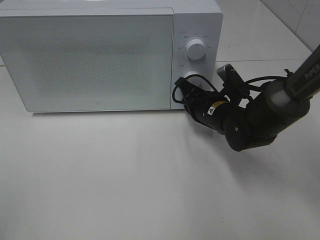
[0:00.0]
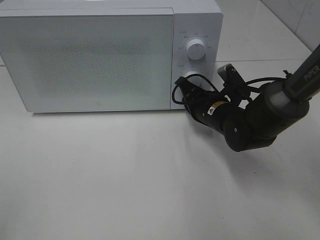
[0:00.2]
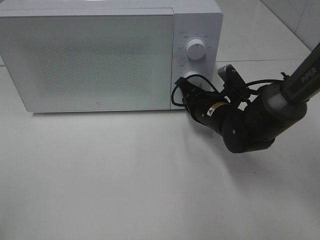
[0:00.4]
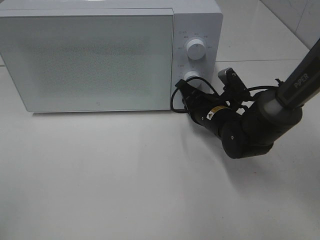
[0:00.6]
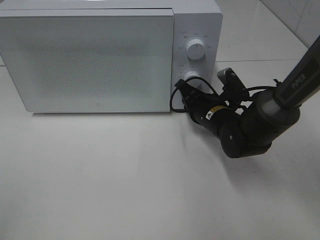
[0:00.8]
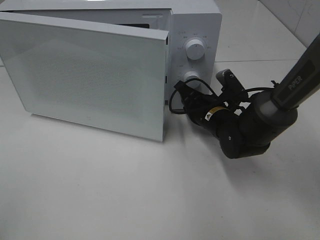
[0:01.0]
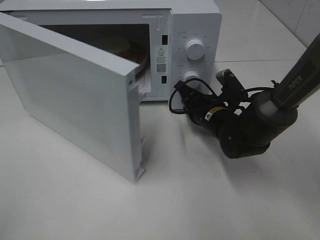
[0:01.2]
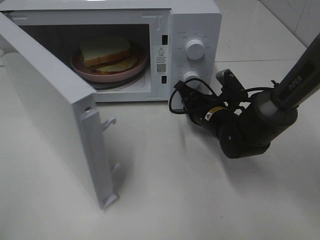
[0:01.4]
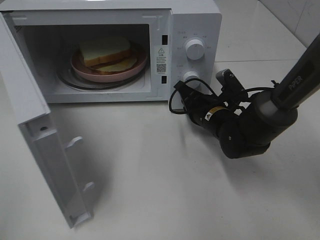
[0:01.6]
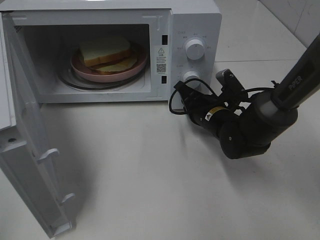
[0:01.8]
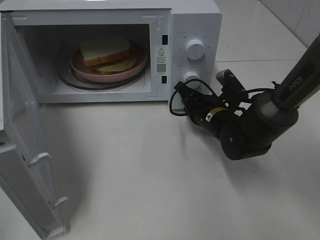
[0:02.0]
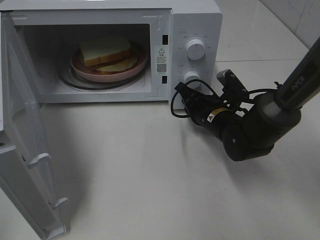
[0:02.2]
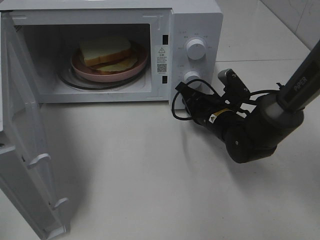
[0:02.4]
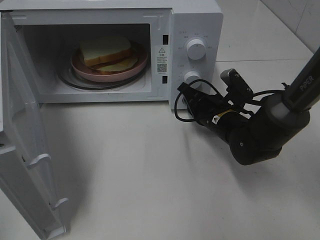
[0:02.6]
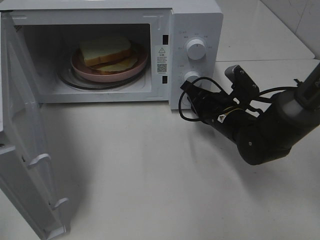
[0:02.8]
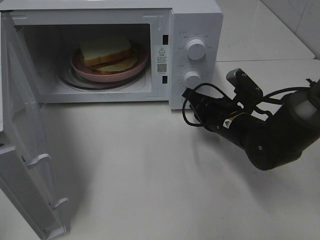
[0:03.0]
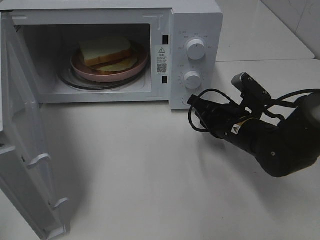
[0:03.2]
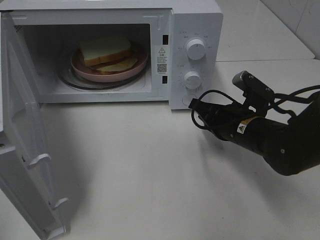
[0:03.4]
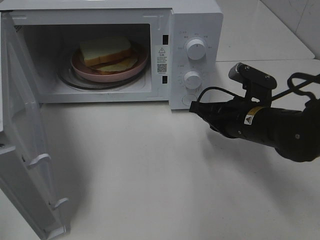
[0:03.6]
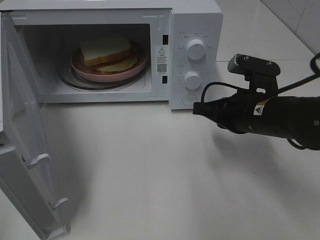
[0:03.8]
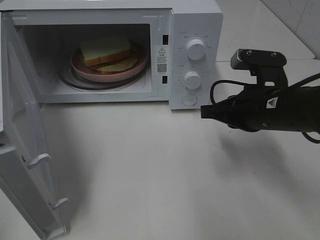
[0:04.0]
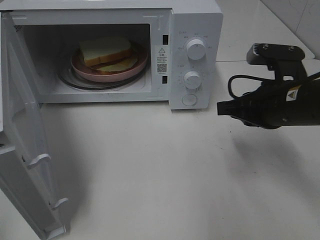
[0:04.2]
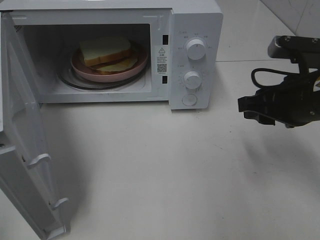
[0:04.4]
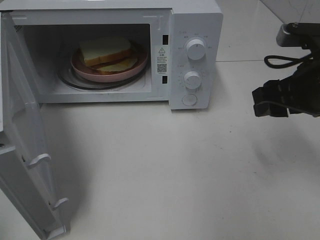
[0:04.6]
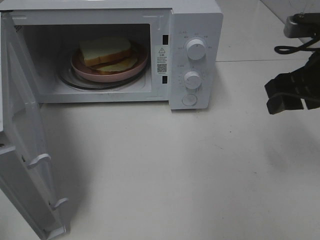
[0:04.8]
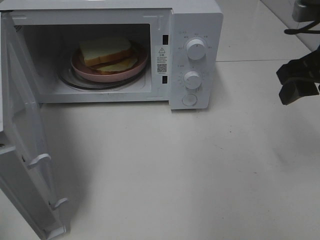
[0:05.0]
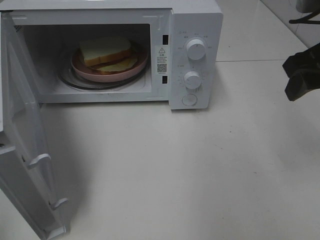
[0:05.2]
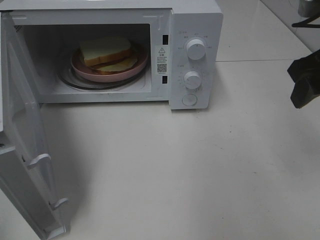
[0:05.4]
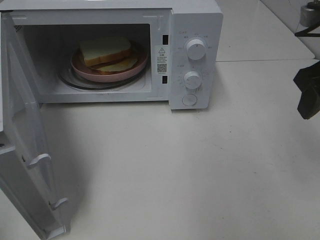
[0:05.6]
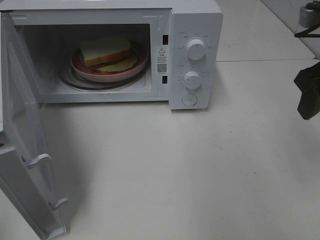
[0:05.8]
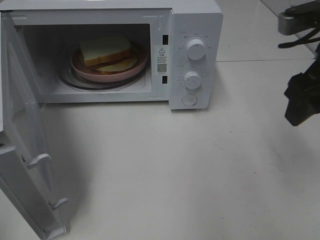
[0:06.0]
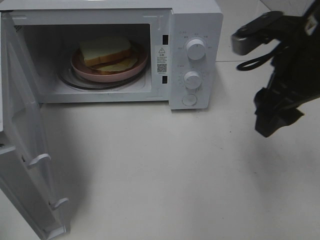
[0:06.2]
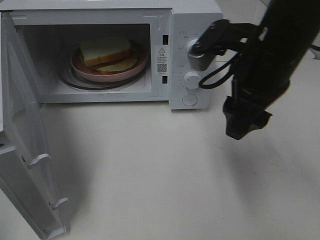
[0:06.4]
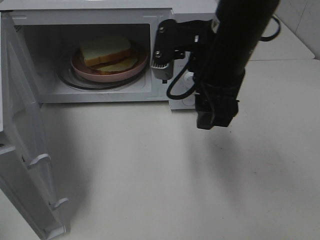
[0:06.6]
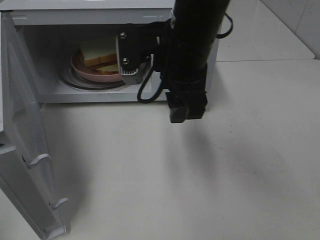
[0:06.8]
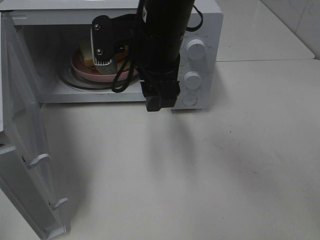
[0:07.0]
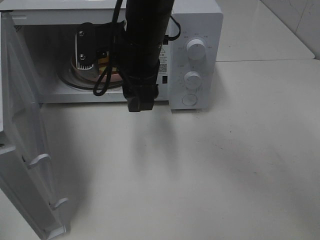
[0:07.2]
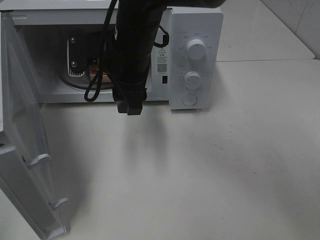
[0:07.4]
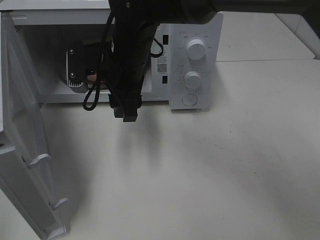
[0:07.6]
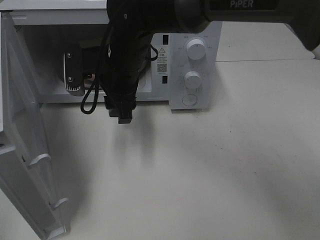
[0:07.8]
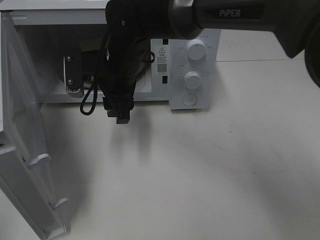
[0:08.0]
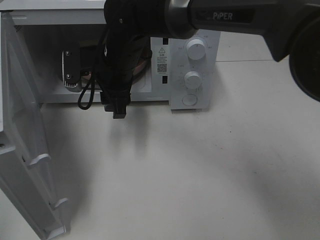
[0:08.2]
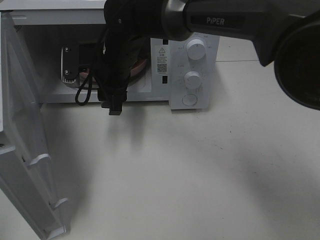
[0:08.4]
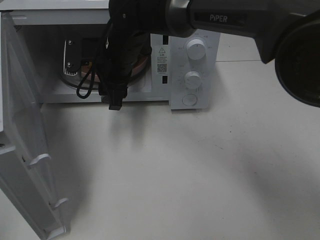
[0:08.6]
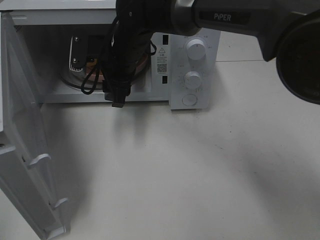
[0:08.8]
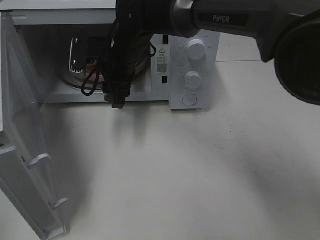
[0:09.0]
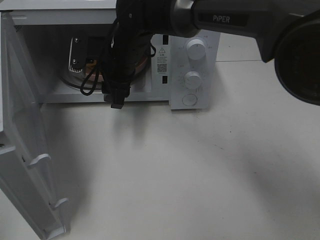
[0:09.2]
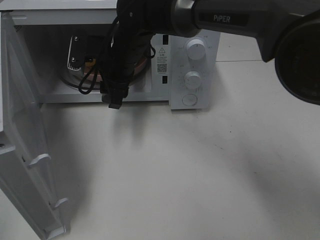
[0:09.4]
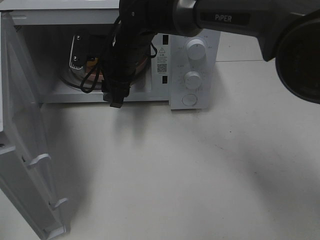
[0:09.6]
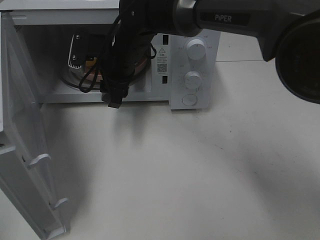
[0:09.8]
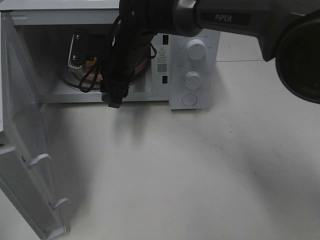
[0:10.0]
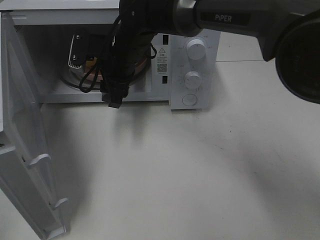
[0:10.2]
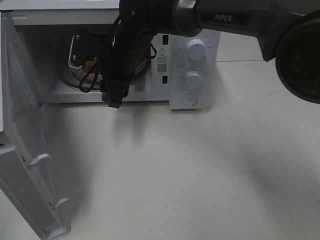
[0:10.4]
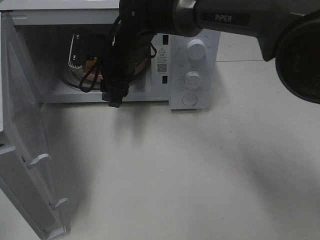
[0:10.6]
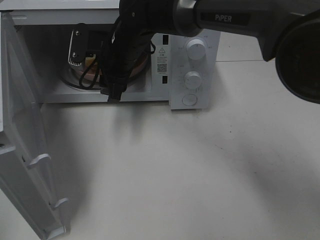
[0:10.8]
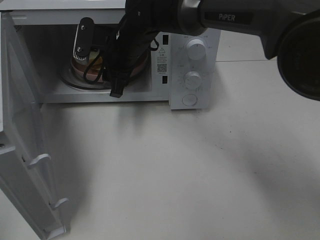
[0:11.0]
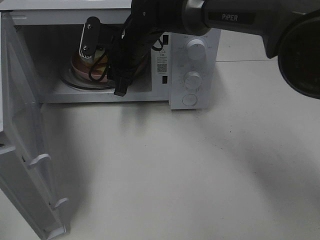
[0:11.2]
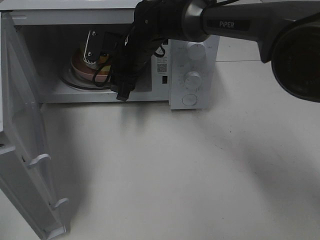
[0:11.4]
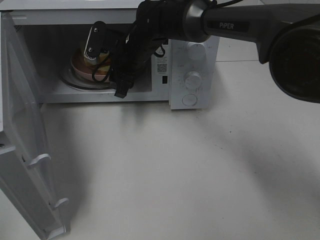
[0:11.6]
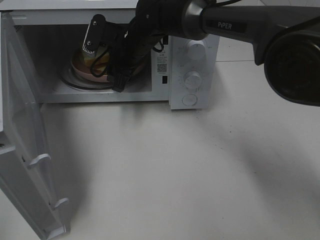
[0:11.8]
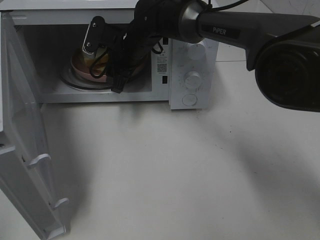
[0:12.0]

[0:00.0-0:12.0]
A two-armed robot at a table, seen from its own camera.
Task of the whole recording: Heat Sandwich.
Step, 0:00.0 to 0:02.6: Right hand: press the switch.
0:01.6 to 0:03.0: The right gripper shifts by roughly 5 cm.
0:03.0 to 0:04.4: The right gripper goes approximately 15 cm upward, to the right and backward, and opens up.
0:04.4 to 0:06.0: The right gripper shifts some 10 cm upward.
0:06.0 to 0:07.6: The right gripper travels to the left by roughly 25 cm.
0:07.6 to 0:09.0: The right gripper moves forward, approximately 5 cm.
0:09.0 to 0:10.4: Neither gripper changes place.
0:10.4 to 0:12.0: The right gripper goes approximately 5 cm forward.

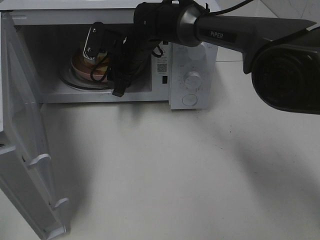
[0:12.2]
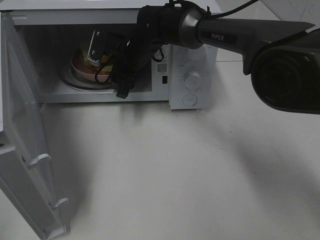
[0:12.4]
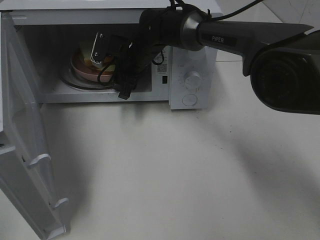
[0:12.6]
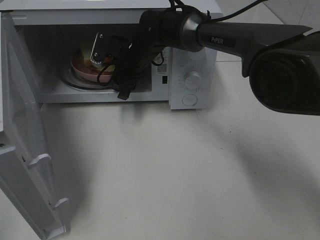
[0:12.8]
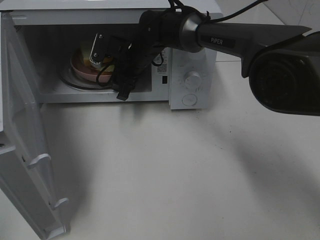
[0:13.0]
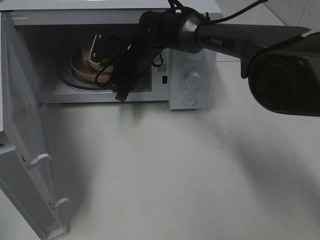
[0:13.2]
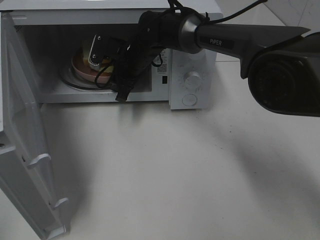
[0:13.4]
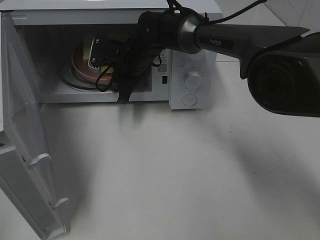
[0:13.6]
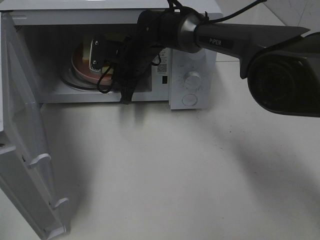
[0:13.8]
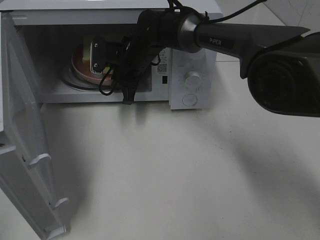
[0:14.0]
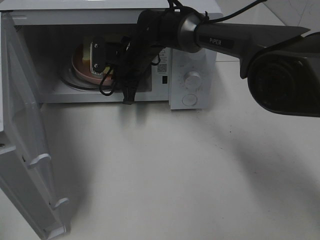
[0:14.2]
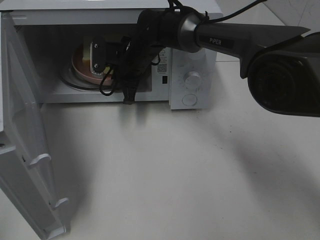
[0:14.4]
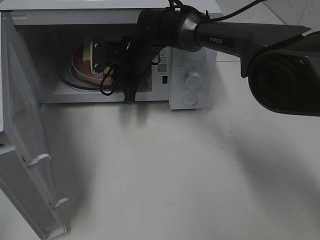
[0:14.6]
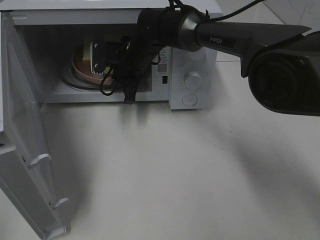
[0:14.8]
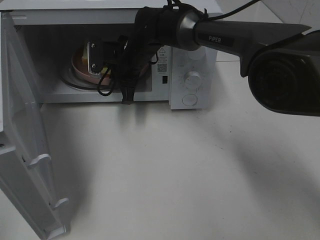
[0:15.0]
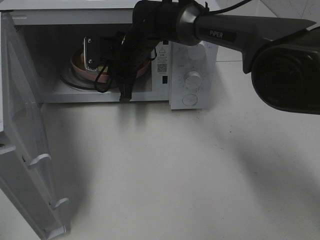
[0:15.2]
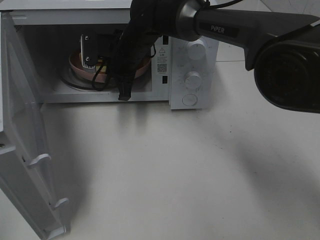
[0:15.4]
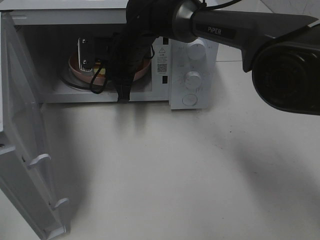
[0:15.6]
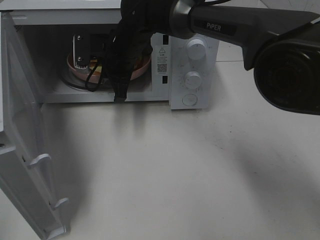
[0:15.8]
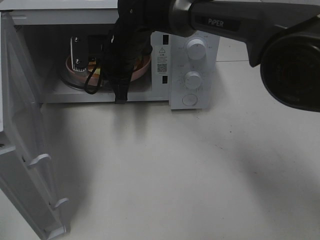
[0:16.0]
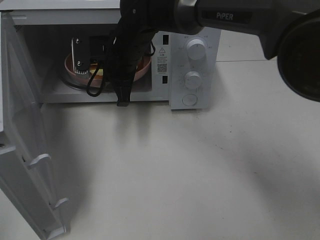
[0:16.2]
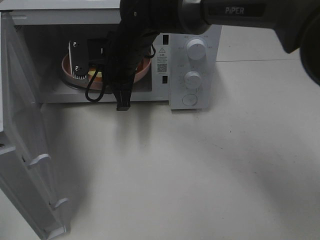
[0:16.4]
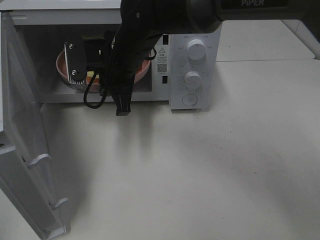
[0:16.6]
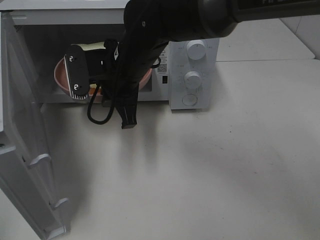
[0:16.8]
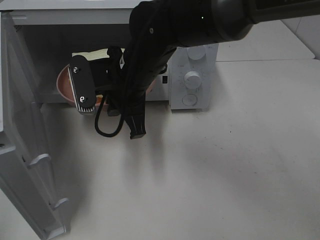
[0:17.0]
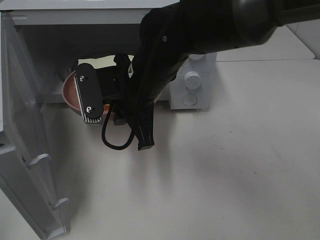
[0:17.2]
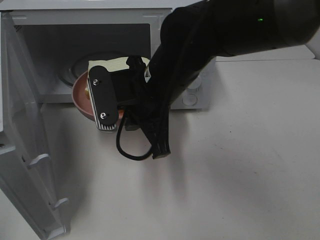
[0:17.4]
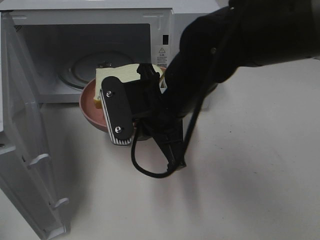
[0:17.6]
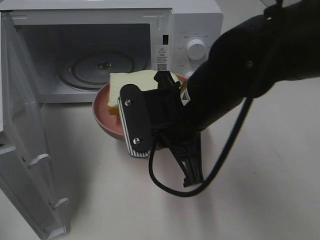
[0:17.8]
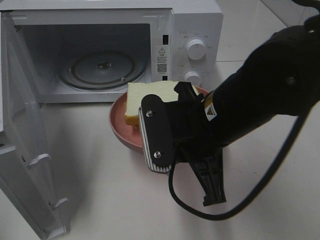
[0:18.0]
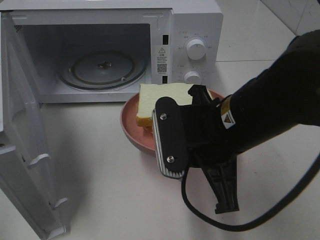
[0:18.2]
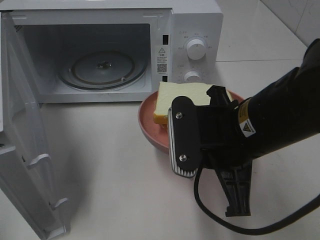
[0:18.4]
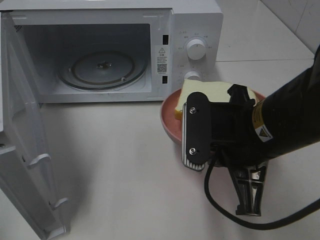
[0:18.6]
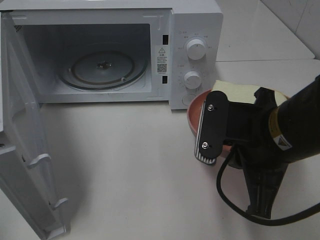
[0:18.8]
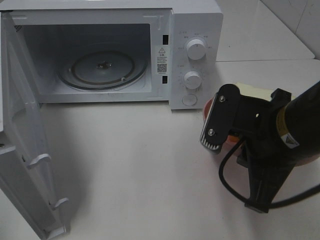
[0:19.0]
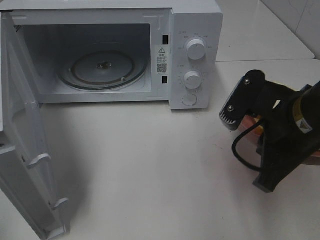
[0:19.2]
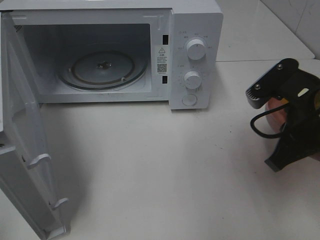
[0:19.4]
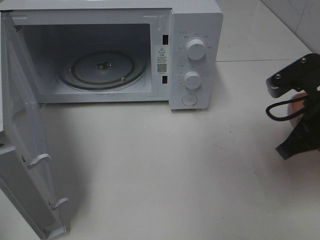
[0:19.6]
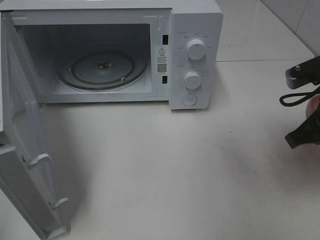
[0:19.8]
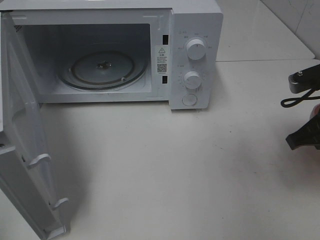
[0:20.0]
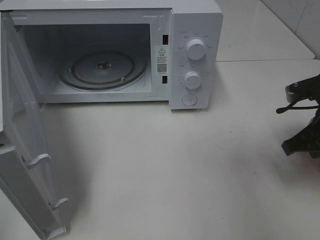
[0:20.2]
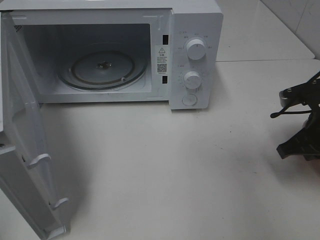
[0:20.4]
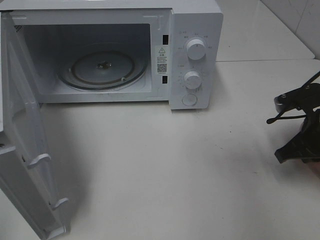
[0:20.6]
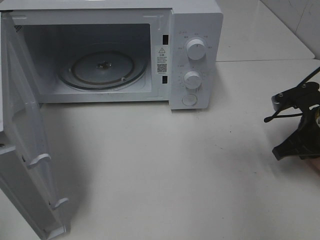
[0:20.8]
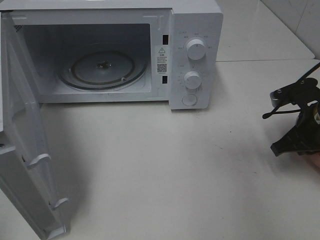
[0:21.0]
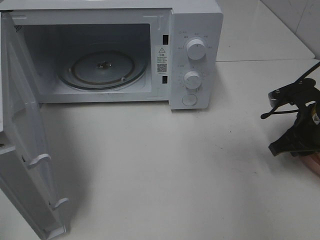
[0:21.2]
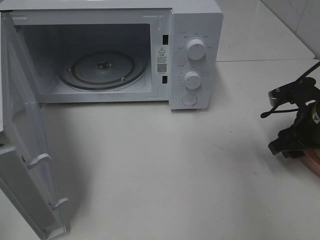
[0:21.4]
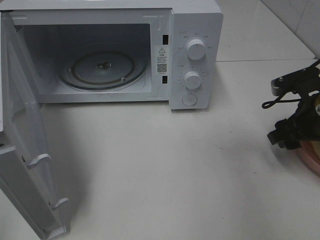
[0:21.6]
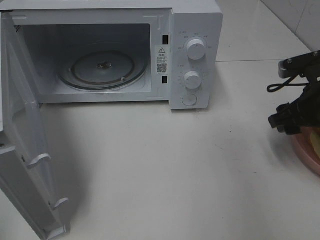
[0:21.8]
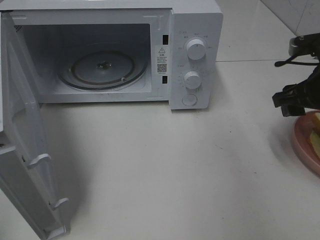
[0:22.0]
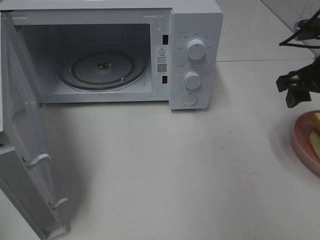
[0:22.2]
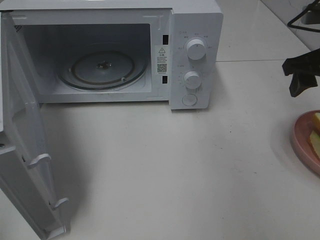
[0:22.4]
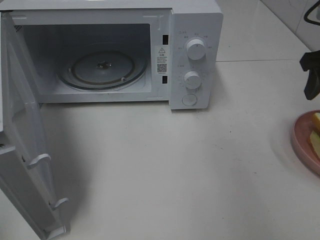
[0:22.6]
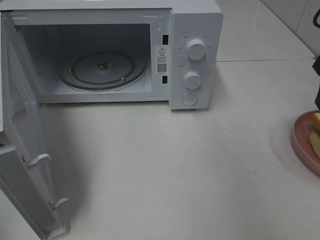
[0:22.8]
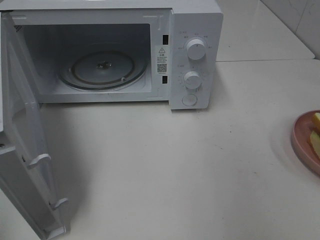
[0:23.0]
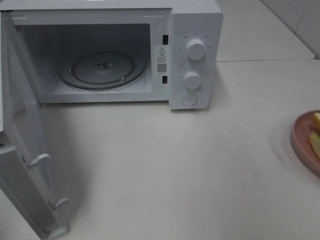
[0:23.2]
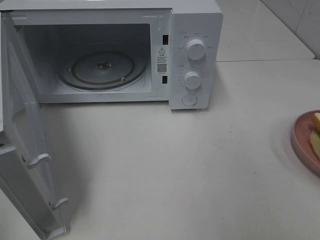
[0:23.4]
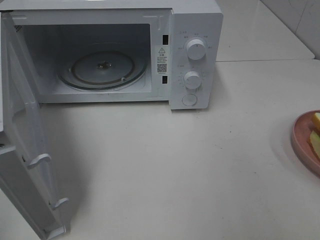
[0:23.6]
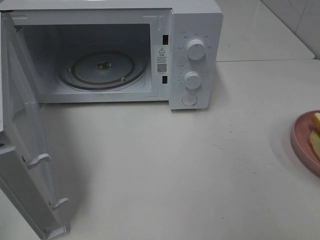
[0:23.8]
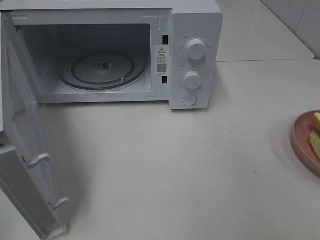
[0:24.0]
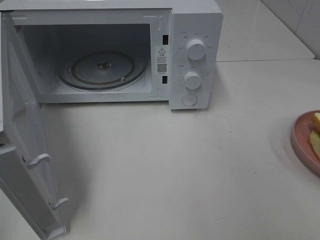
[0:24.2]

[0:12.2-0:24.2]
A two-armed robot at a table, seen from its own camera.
Task of the whole recording: Heat Sandwich.
Step, 0:12.2 to 0:14.4: Right hand: grab the plate with the sandwich.
Step, 0:14.6 to 0:22.4: Right hand: place the plate on the table.
0:12.2 to 0:13.8: The right gripper closes up.
0:13.8 to 0:15.2: The grippers move only a little.
0:15.2 to 0:16.6: The right gripper goes some 10 cm backward.
0:16.6 to 0:18.2: The right gripper shifts roughly 20 cm backward and to the right.
0:18.2 to 0:19.8: The right gripper heads to the right, covering about 15 cm.
0:19.8 to 0:21.2: The right gripper shifts approximately 5 cm downward, and opens up.
0:21.2 to 0:22.6: The right gripper travels upward by some 15 cm, and opens up.
0:22.6 to 0:24.2: The right gripper shifts some 25 cm backward.
